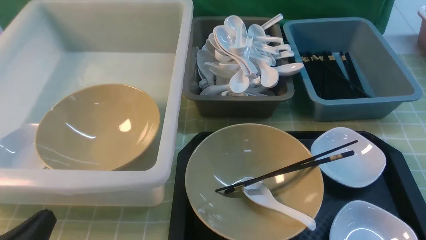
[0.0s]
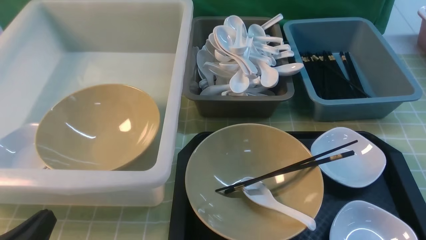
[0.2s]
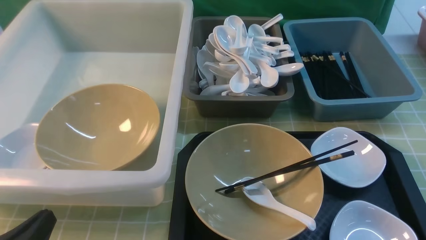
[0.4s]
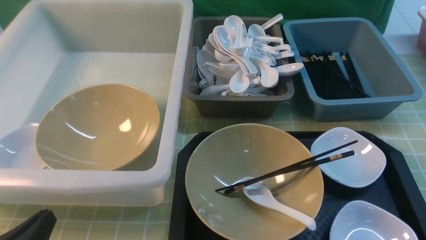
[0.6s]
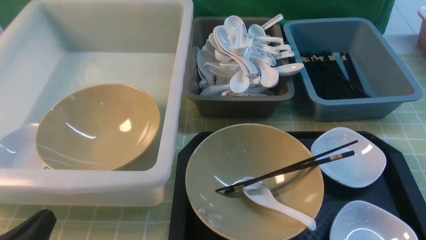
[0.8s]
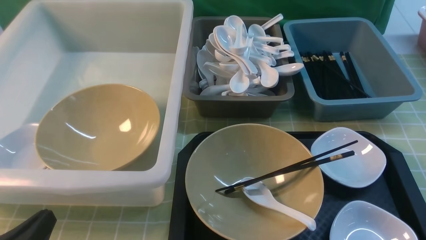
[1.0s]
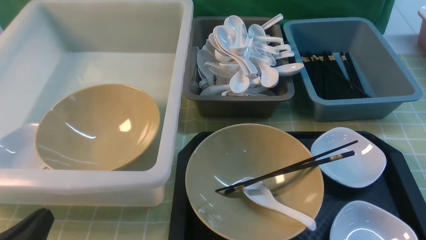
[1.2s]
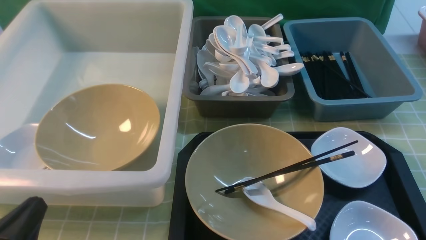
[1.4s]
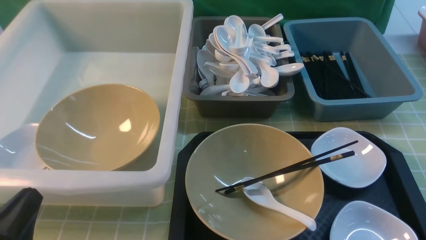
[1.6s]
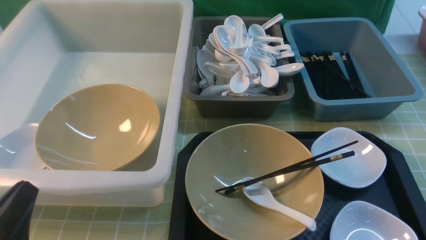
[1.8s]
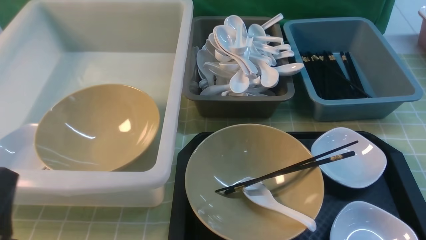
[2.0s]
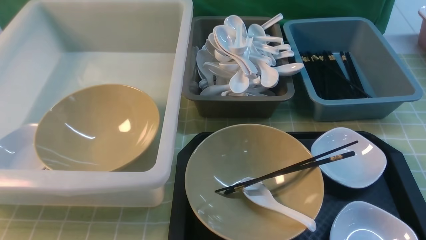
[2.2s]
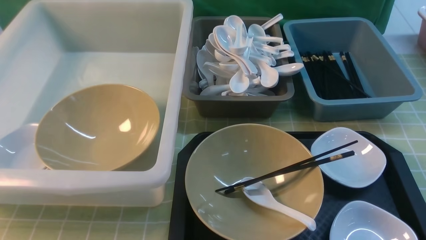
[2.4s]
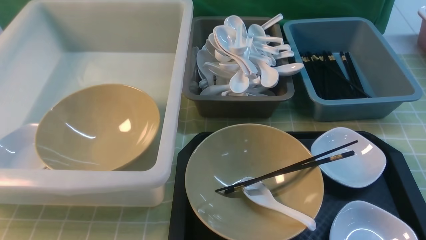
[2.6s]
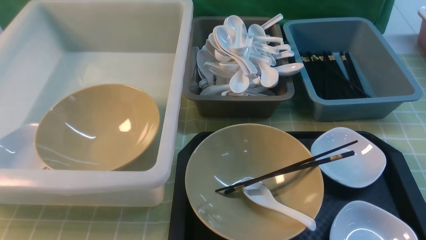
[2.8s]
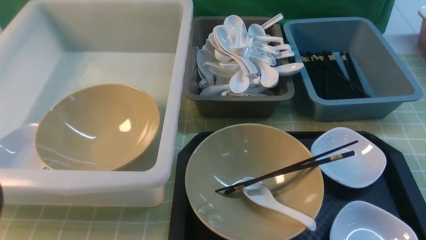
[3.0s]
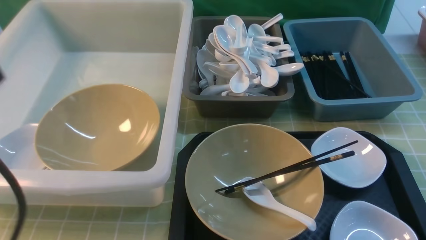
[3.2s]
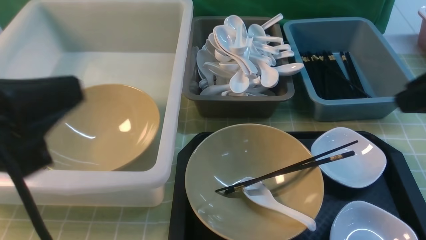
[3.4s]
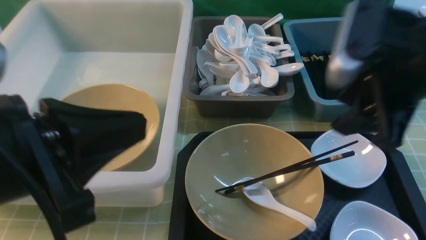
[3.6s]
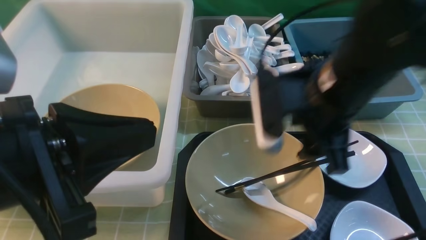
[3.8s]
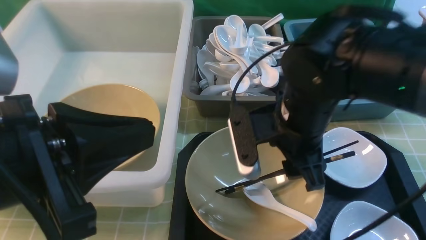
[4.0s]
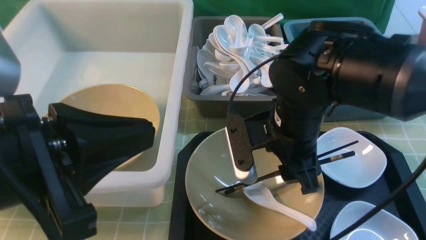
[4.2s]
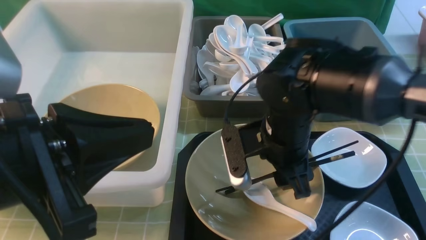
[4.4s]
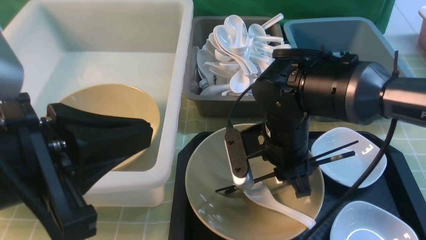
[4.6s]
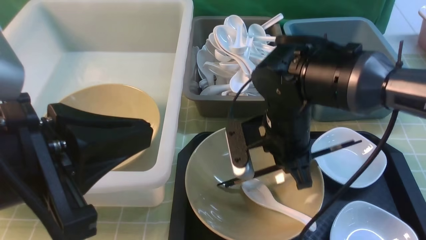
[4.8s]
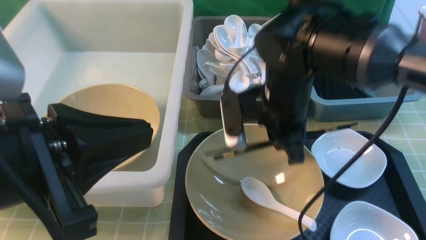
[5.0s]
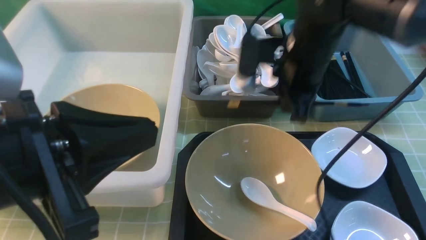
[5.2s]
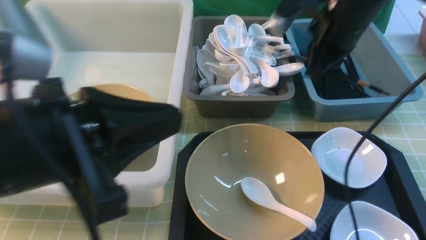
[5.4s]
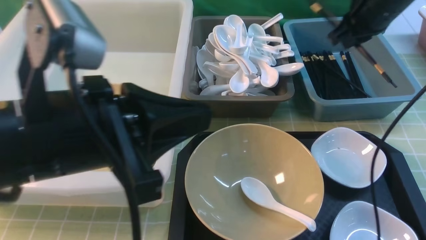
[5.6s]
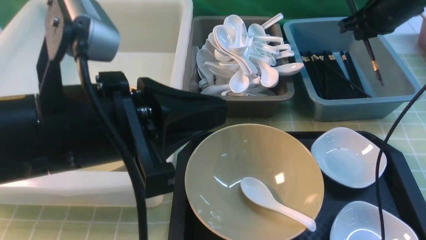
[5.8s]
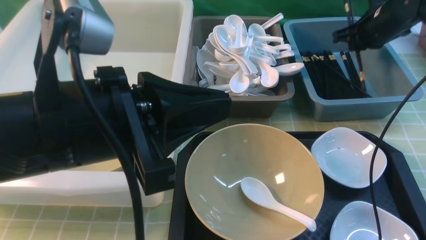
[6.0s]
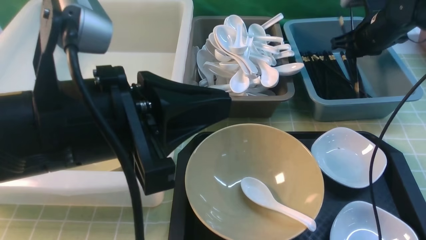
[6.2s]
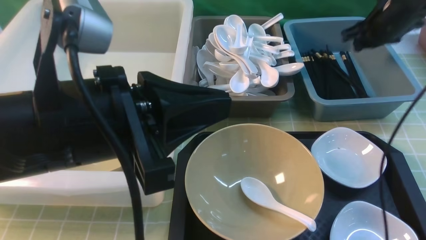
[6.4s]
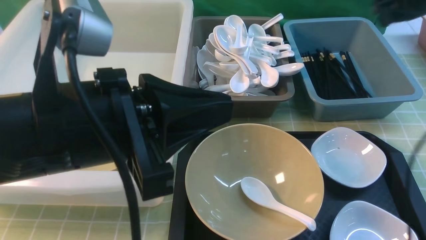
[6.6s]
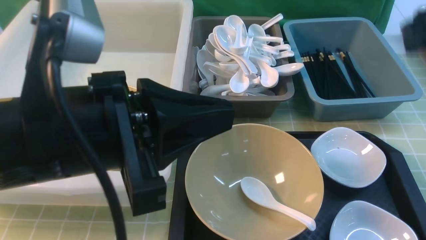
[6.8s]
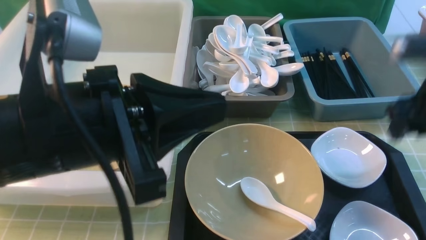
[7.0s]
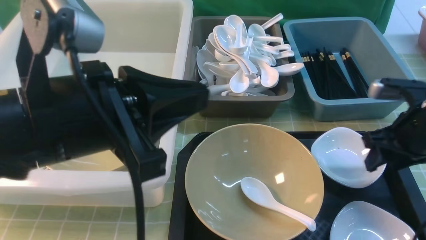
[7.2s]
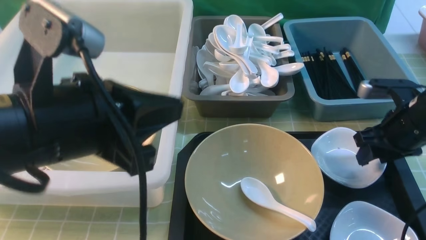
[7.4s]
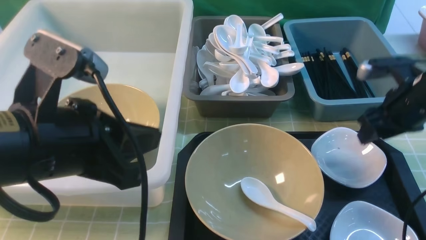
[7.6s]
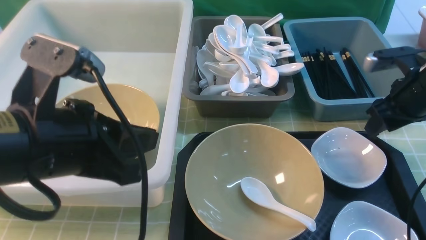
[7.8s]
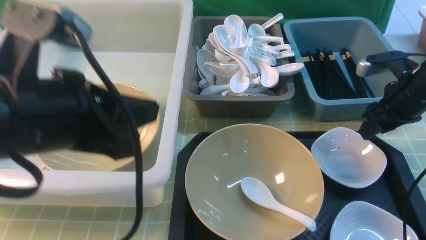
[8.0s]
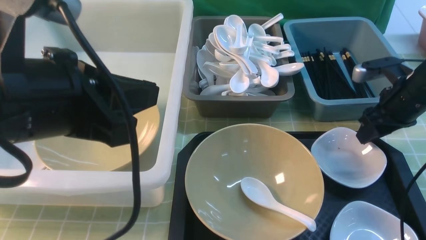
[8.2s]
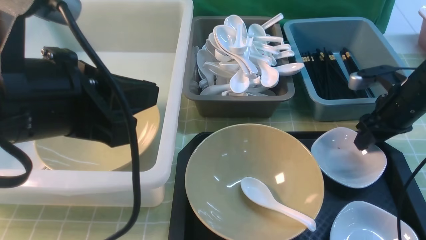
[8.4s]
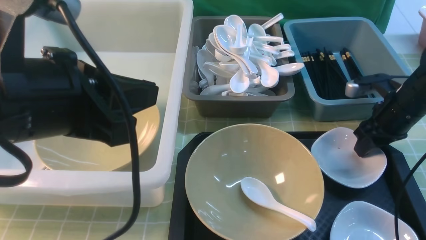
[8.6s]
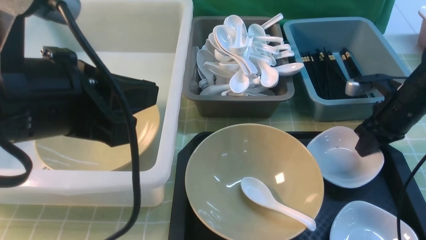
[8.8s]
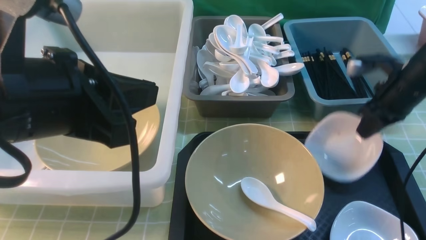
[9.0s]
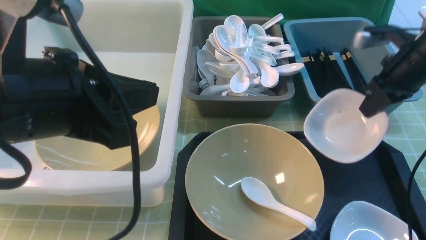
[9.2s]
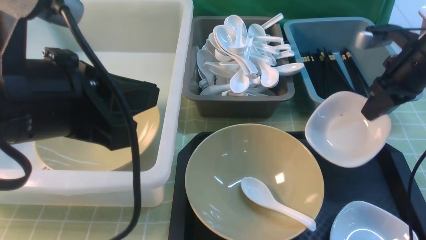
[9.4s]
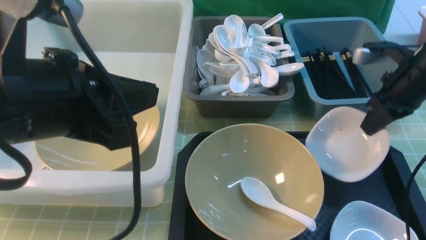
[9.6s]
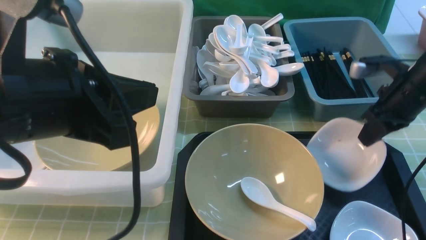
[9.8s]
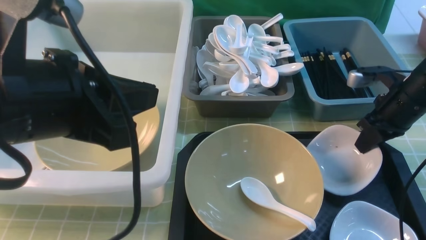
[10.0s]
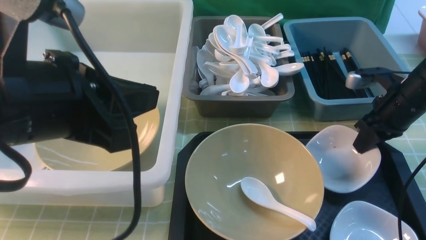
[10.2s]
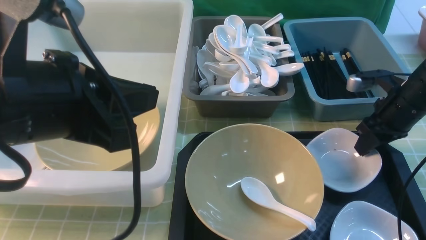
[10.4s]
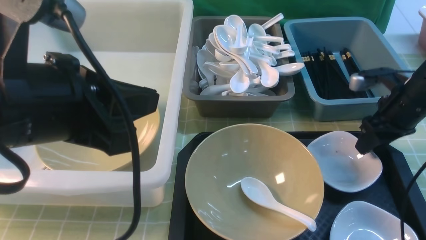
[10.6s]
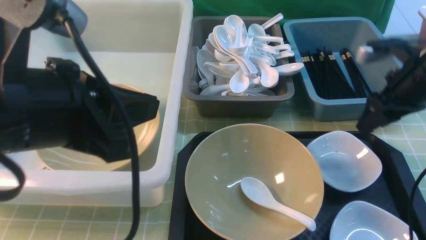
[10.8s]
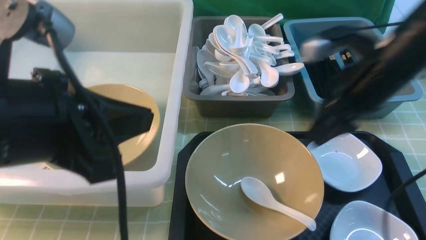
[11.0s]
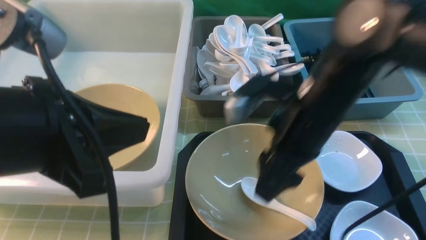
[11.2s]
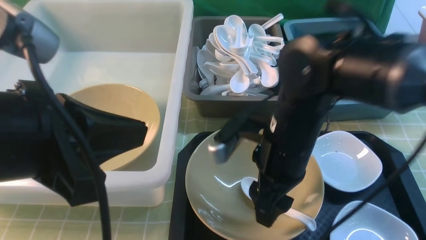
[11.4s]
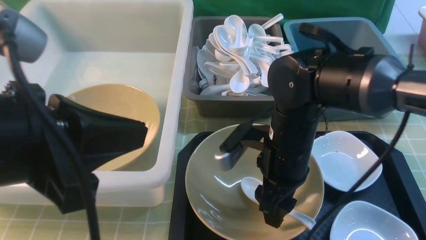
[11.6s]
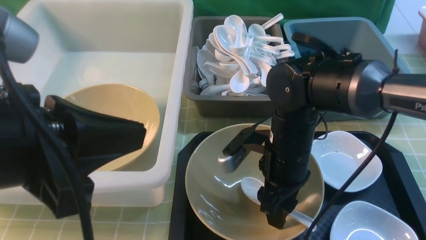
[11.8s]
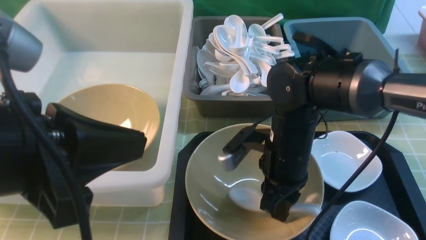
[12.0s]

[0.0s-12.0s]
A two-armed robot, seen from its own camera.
Task of the whole recording: on green table put chopsticks spoon bowls plates into blue grey white boxes.
Step, 0.0s to 5.0s: use the right arm to grab the chopsticks.
Step, 5.2s to 6.2s: use the right arm to put the chopsticks into the small storage box on the right.
Step, 6.4s to 9.4s: use the right arm to grab the plate.
Step, 9.6s to 10.8s: use the right arm to put the plate on the tray.
1.6s to 3.0s: The left gripper shifts some 20 cm upward.
3.0s to 4.4s: The right gripper shifts about 35 cm to the left, downward and forward, and opens its fingers. Meanwhile the left gripper travels to the right by approximately 10 cm.
4.4s to 6.0s: The right gripper heads to the right and forward, covering roughly 30 cm, and closes its fingers, while the left gripper ends up some 5 cm from where it was.
6.0s to 7.6s: The right gripper shifts roughly 15 cm backward, and opens its fingers.
7.6s to 9.0s: The right gripper closes its fingers.
9.0s to 10.4s: The right gripper opens up.
10.4s to 12.0s: The right gripper travels to the left by approximately 20 cm, and opens, then closes again.

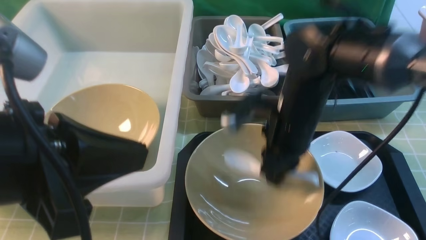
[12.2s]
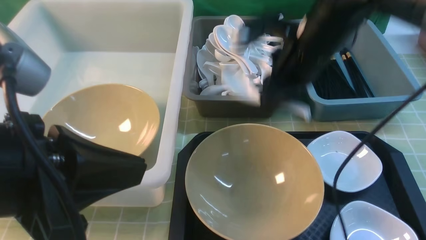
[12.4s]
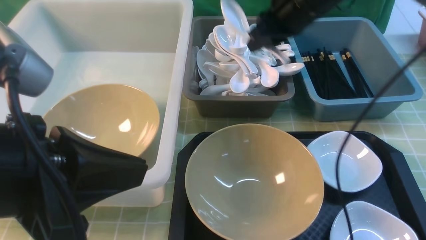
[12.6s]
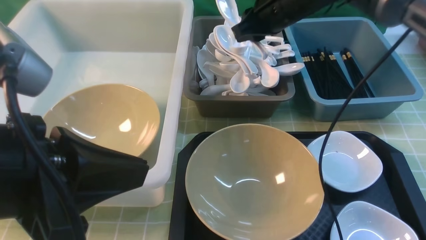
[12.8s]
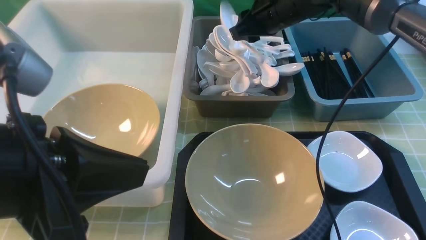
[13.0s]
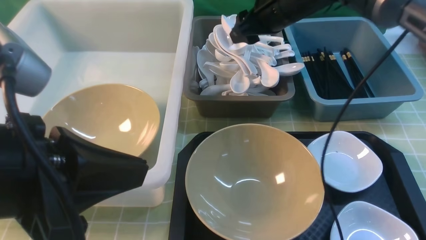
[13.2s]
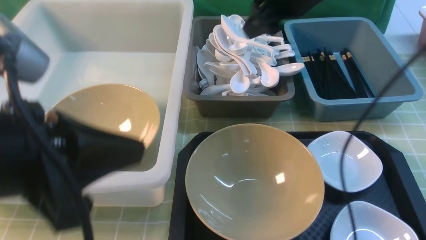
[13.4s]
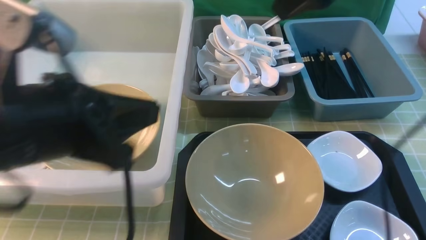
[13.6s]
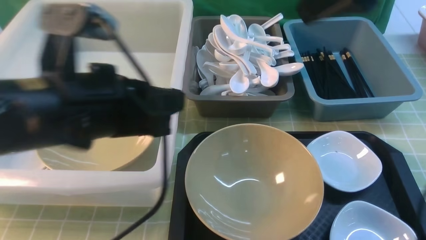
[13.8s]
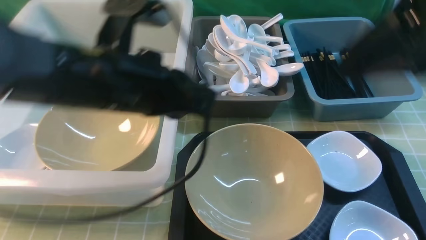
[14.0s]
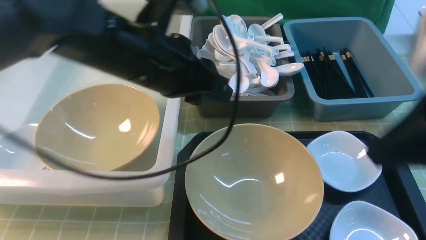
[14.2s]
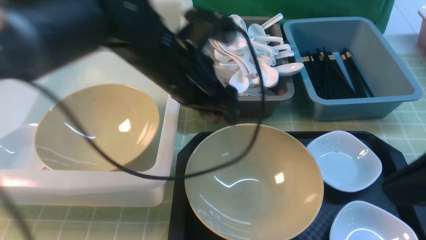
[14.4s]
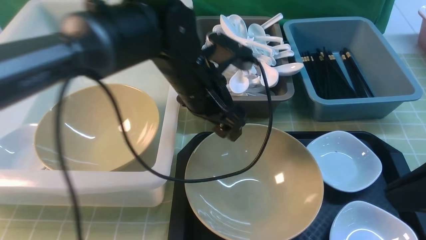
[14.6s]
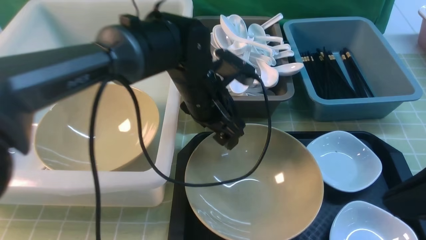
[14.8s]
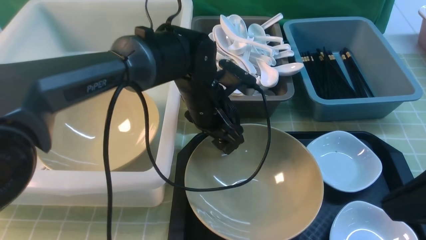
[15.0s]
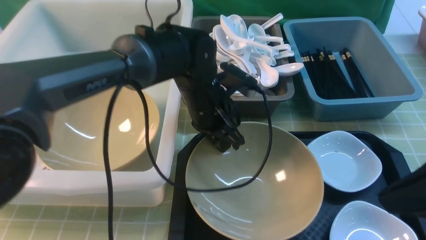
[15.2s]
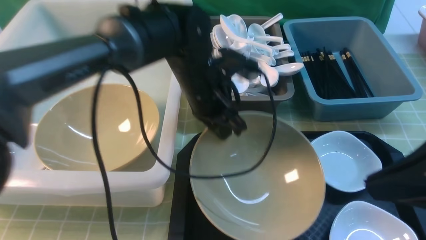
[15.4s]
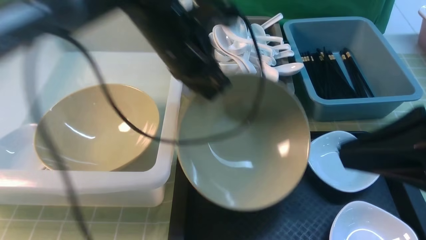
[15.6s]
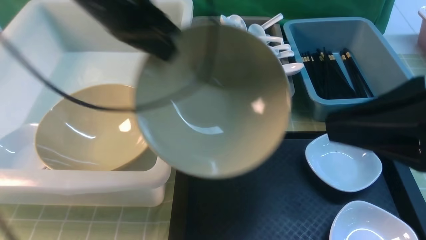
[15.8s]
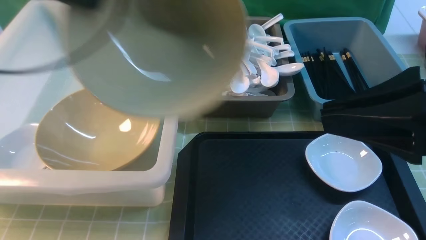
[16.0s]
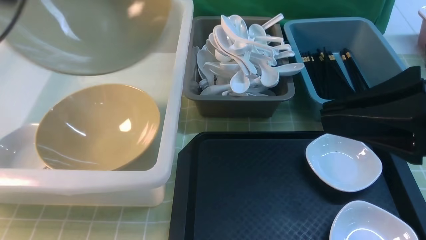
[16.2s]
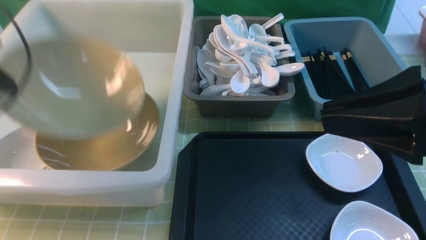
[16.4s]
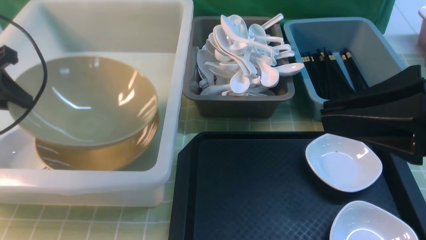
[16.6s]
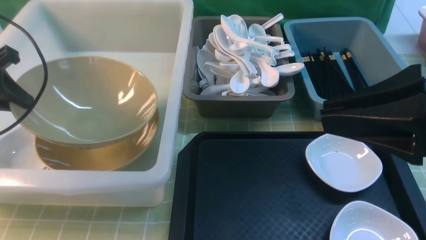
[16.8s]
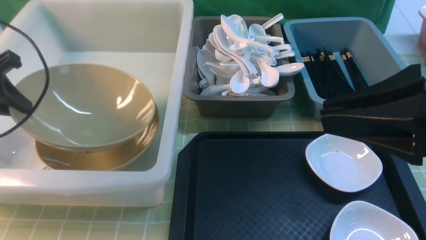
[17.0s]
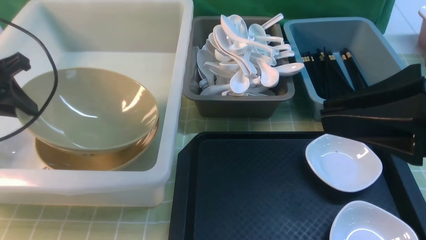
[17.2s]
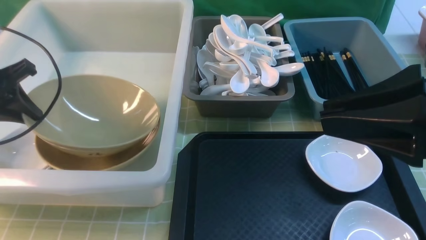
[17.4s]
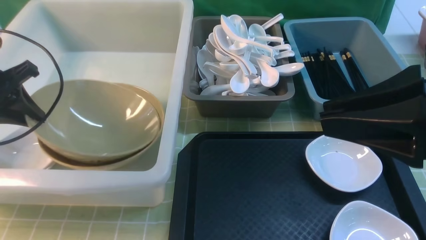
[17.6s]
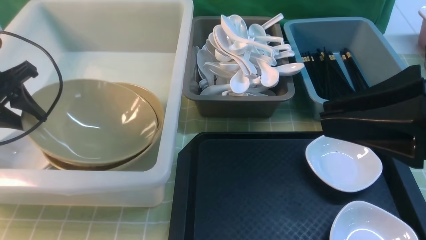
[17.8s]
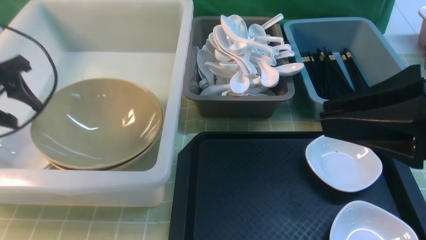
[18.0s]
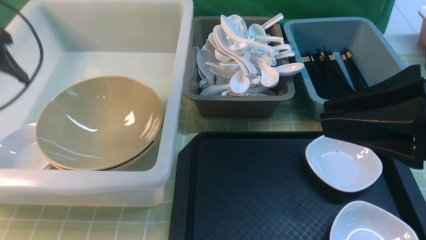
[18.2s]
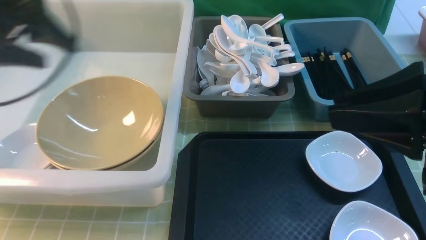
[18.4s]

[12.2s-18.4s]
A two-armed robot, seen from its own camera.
Task of the whole recording: on green table put chopsticks spoon bowls plates into blue grey white boxes.
Step, 12.4s to 13.8s: use the right arm to put the soup spoon into the small storage box in the middle.
Step, 14.0s to 15.6s: use the left arm to grab the yellow noodle bowl on the left.
Step, 15.8s to 18.0s: use the left arm to put the noodle bowl into the large storage box on the left.
12.2s to 13.8s: The right gripper is displaced upward and to the right by roughly 20 cm, goes forward and returns, some 15 cm each way, and opens, while the left gripper travels forward by some 10 cm.
13.8s to 15.4s: The left gripper heads forward, to the right and downward, covering approximately 20 cm, and opens, then closes again. Meanwhile the right gripper shifts approximately 15 cm backward and downward, and closes.
15.4s to 16.8s: The left gripper moves to the left, approximately 30 cm.
16.8s to 18.4s: The left gripper heads to the right and upward, covering about 15 cm, and opens its fingers.
